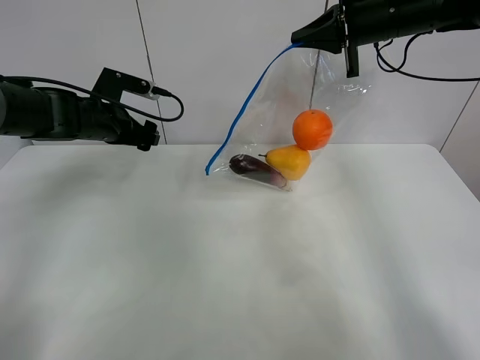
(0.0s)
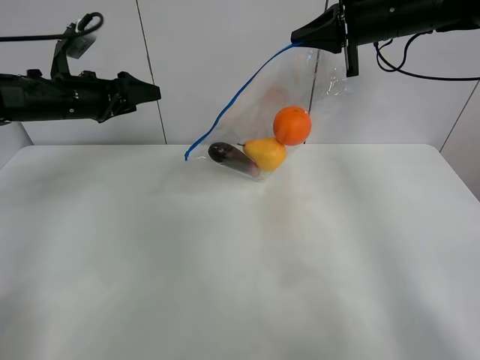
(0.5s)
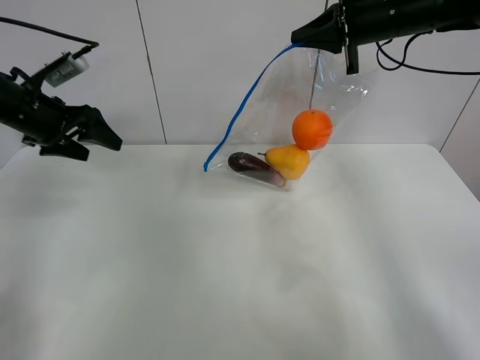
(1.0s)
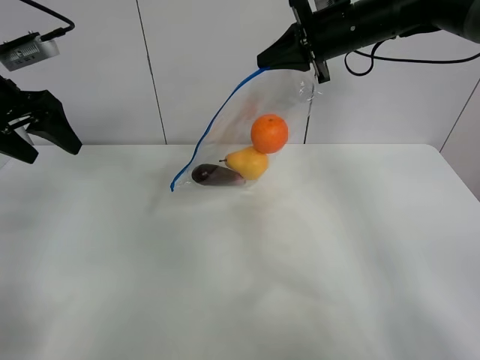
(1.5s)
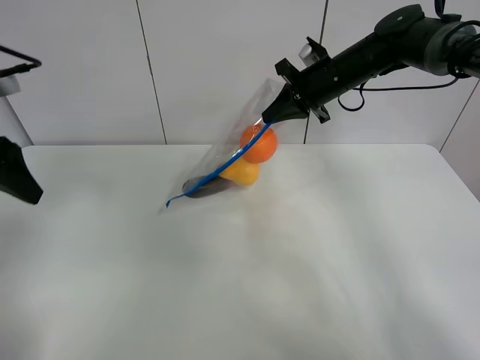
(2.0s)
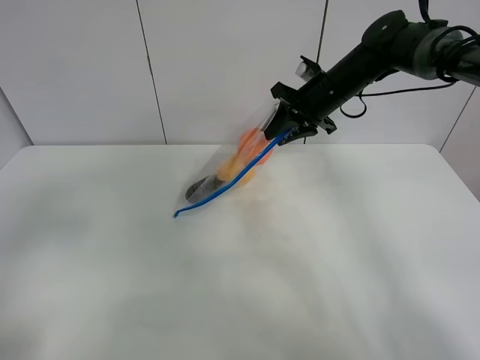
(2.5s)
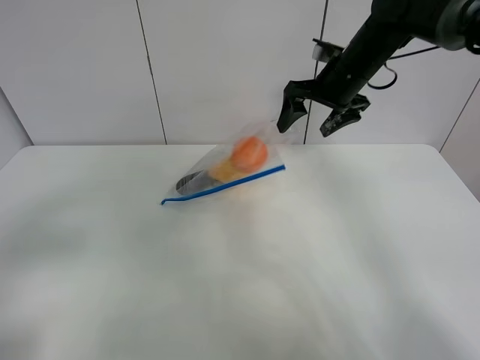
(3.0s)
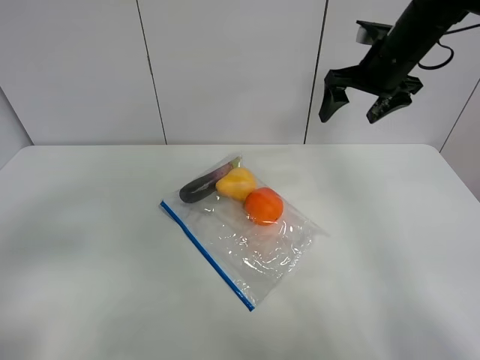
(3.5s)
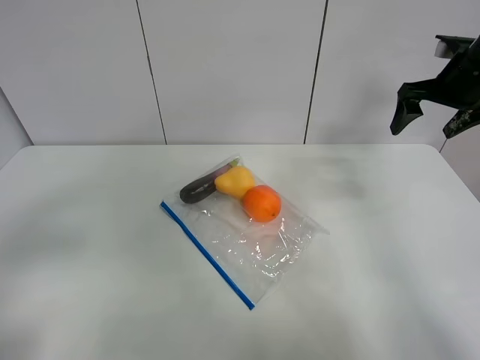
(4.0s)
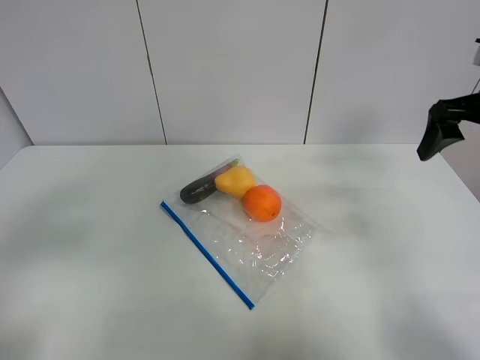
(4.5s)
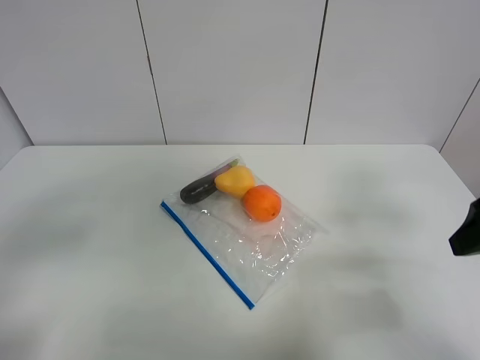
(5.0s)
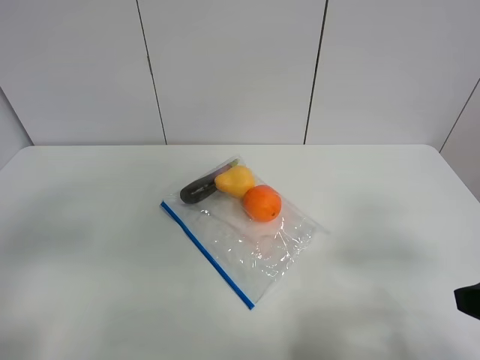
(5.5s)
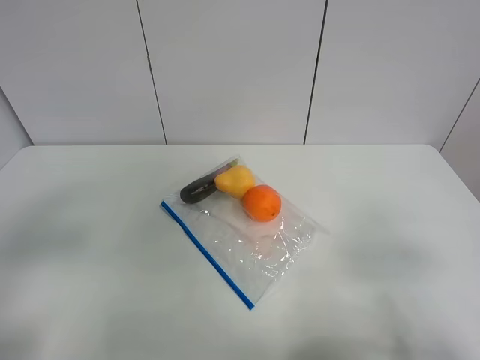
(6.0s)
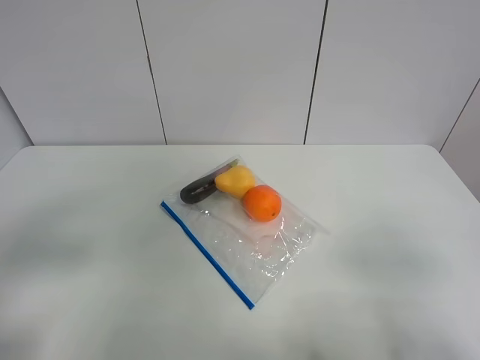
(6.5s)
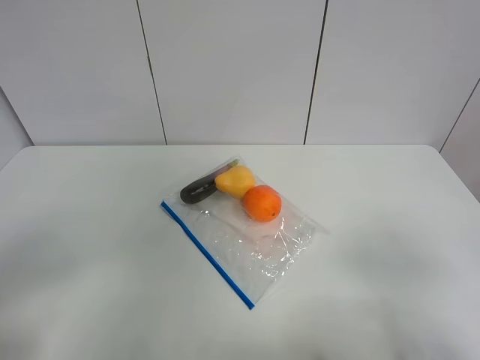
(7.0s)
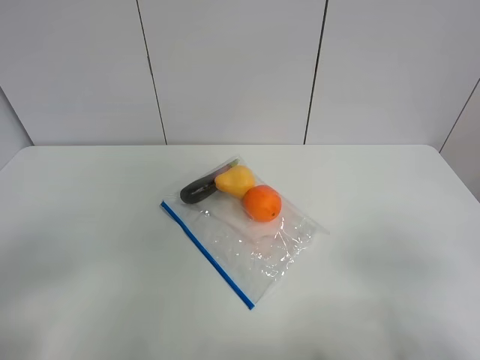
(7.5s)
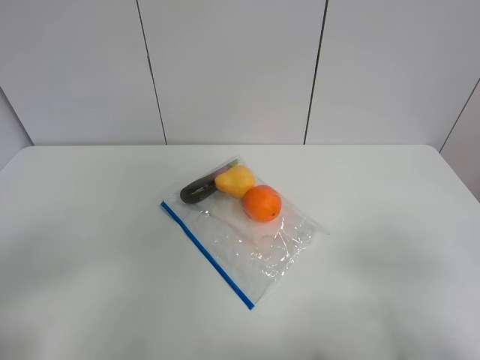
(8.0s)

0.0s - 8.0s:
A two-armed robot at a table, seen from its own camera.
Step, 0.0s - 3.0s: Place the fruit bag with right gripper.
0.0s - 2.0s: The left gripper travels backward and upward by approximately 25 cm, while the right gripper shifts approximately 10 cm downward and to the left.
2.0s - 4.0s: The right gripper moves to the right, roughly 15 cm, and opens its fingers. The left gripper moves backward, approximately 15 cm.
4.0s - 6.0s: The right gripper goes about 35 cm backward.

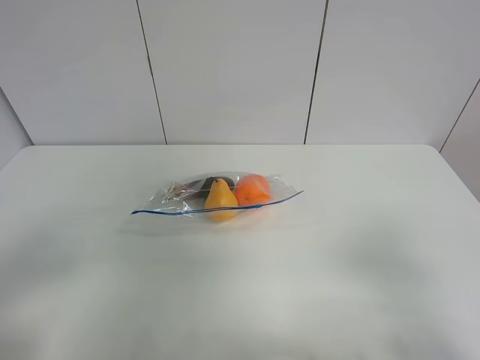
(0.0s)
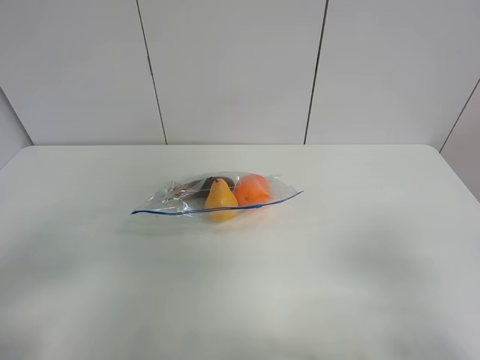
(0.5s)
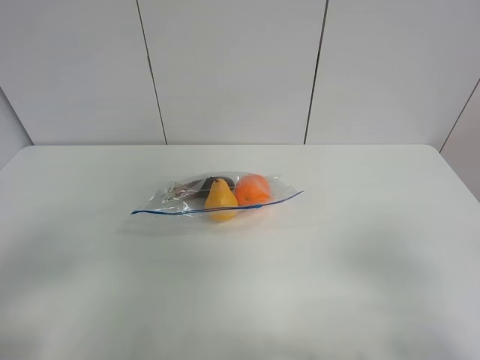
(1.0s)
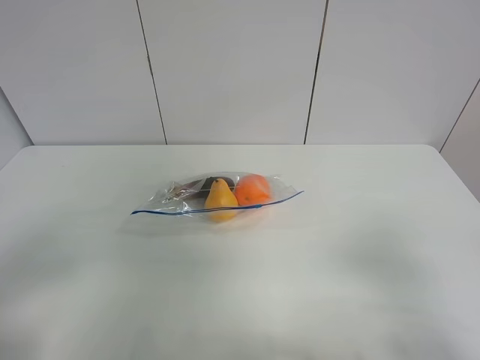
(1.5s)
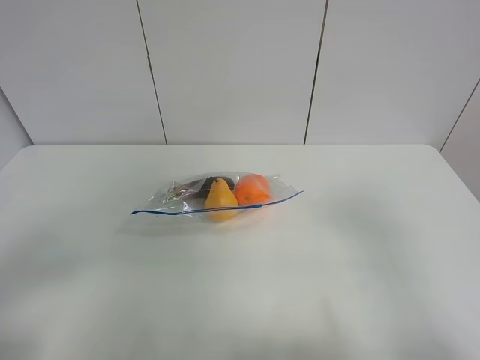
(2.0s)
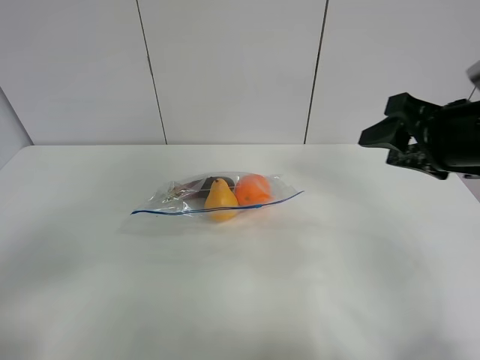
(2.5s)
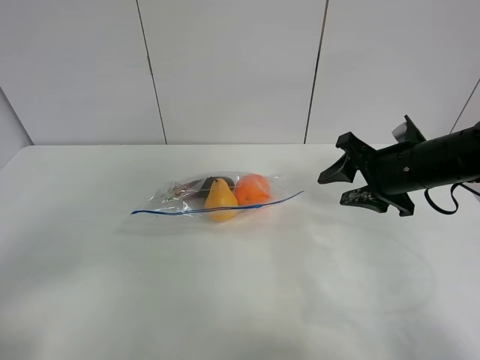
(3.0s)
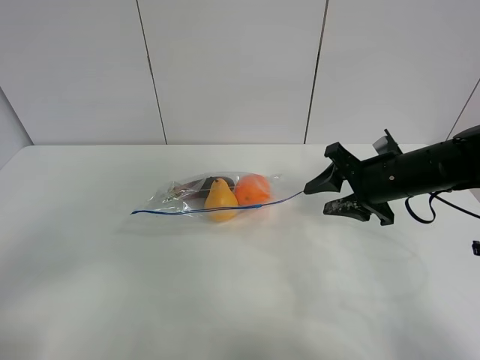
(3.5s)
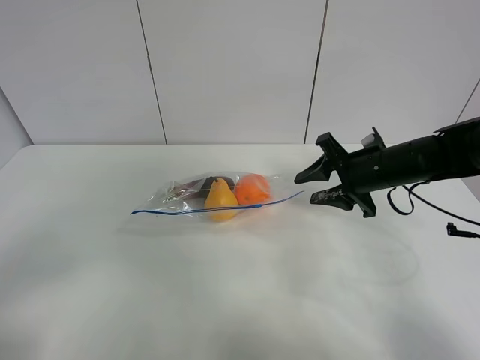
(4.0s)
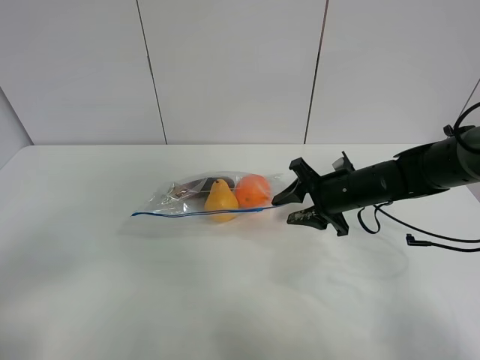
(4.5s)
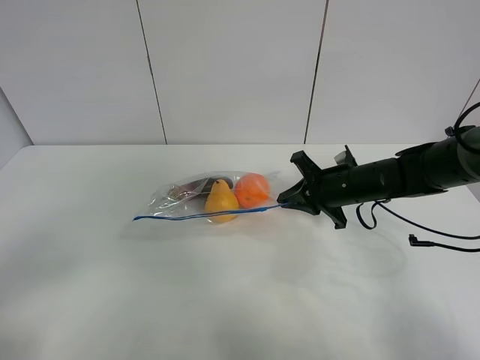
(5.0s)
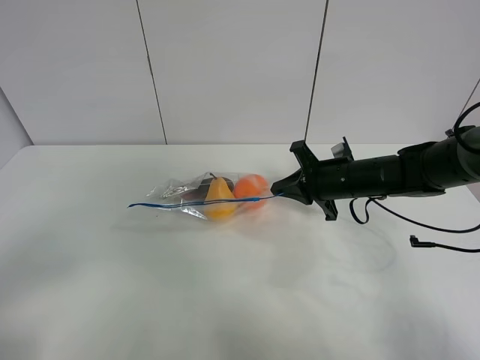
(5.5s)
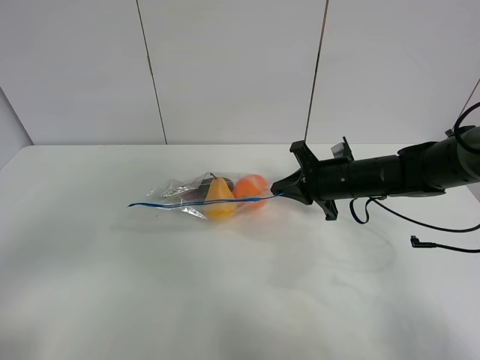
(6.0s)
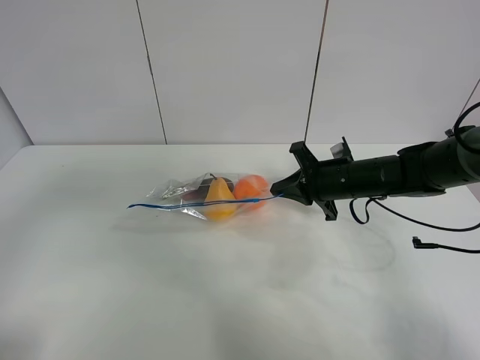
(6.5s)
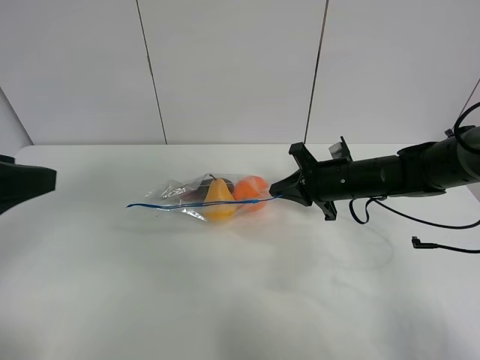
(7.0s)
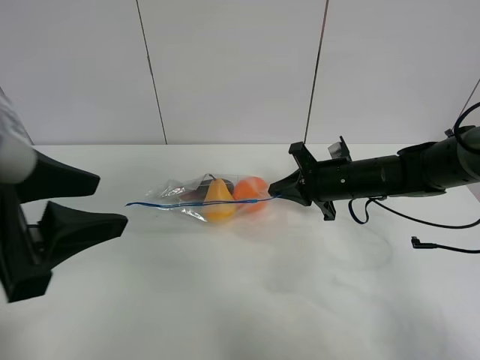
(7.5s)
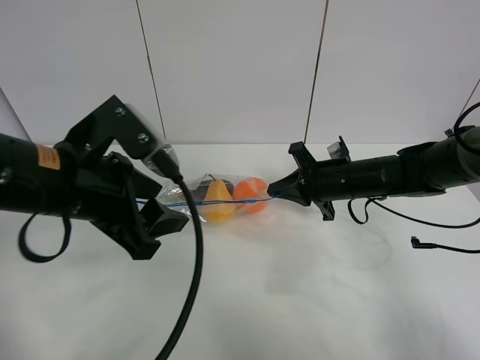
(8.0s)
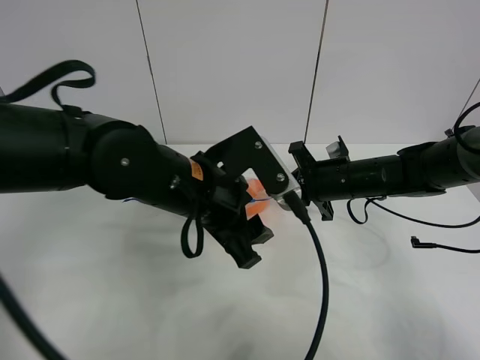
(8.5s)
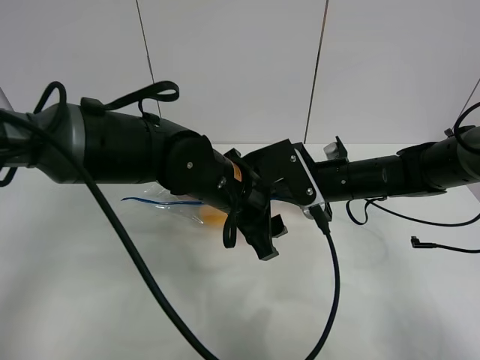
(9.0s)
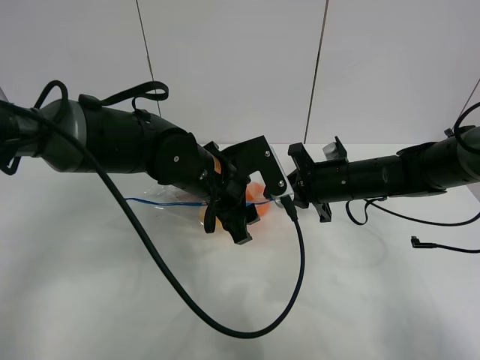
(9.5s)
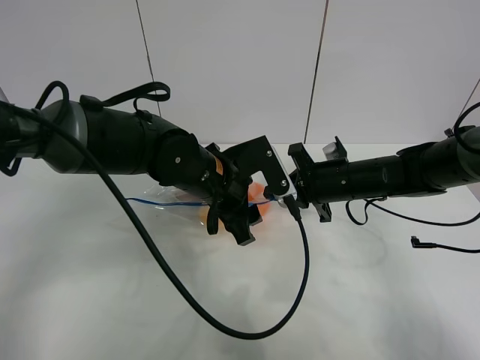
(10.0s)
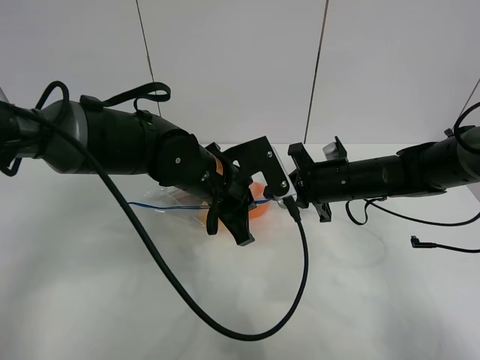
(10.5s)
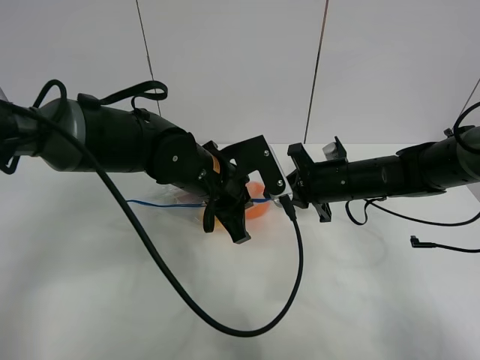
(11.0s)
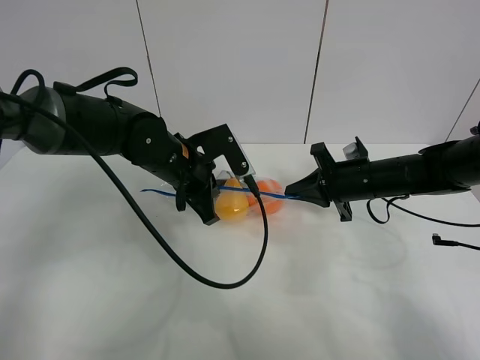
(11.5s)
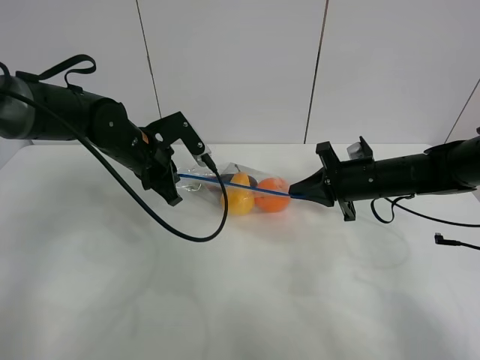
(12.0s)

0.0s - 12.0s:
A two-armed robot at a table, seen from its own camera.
Step, 0.0s - 5.0s: Grasp the fruit bag with right gripper.
2.0s - 4.0s: The right gripper heads forward and downward, covering about 30 cm.
4.0s - 6.0s: The right gripper closes.
6.0s - 8.0s: The left gripper heads forward and to the right, covering some 25 cm.
8.0s - 10.0s: The left gripper moves to the right, forward and downward, approximately 15 cm.
10.0s - 12.0s: The left gripper heads to the left and forward, covering roughly 15 cm, and closes its fingers.

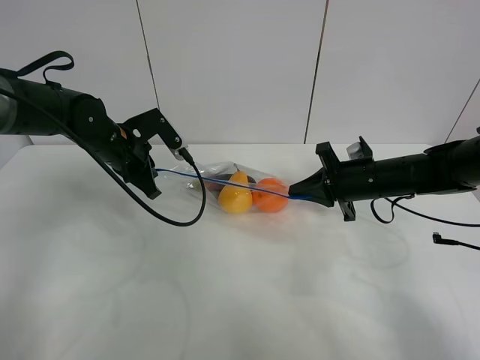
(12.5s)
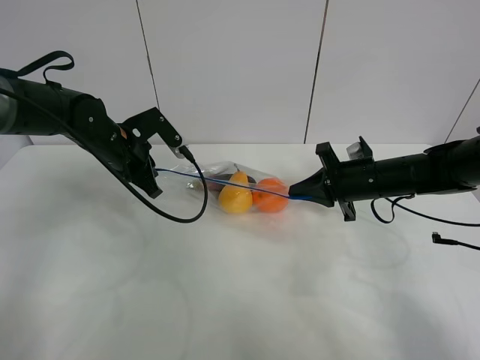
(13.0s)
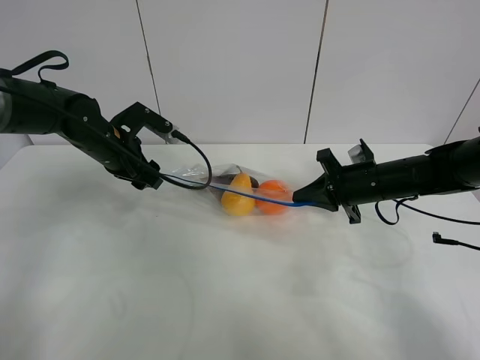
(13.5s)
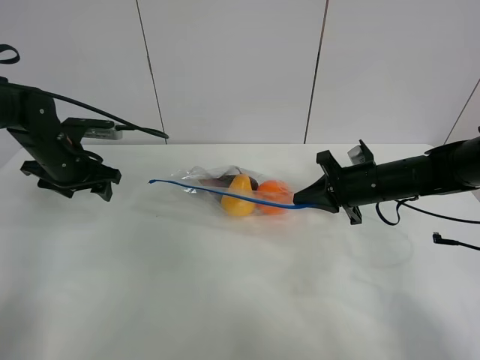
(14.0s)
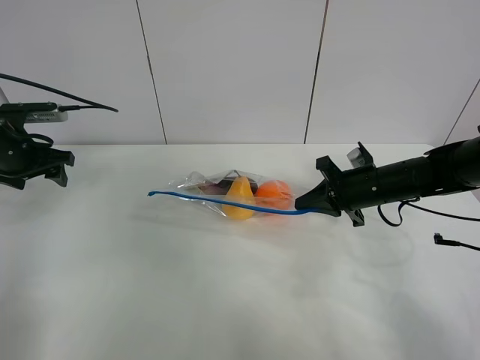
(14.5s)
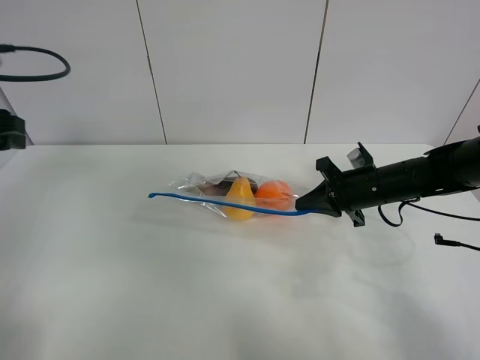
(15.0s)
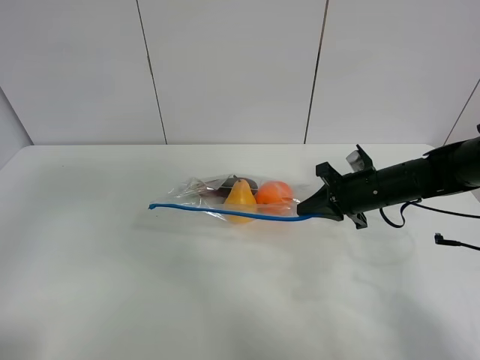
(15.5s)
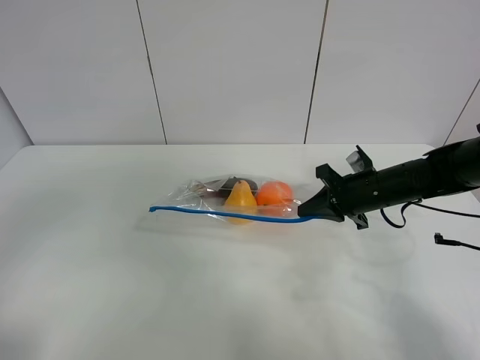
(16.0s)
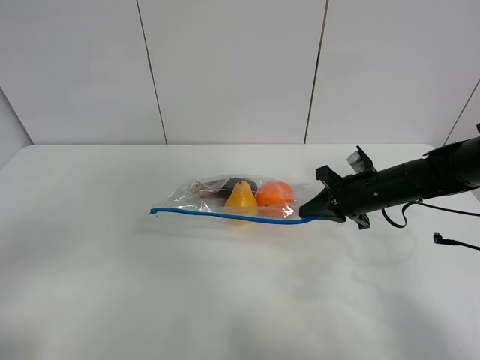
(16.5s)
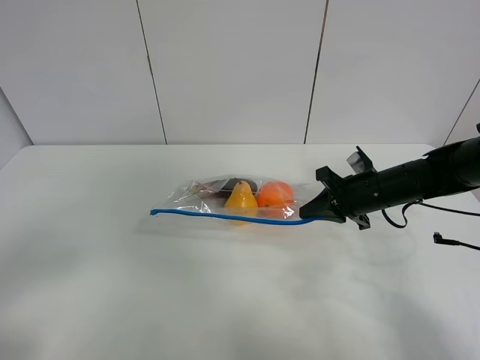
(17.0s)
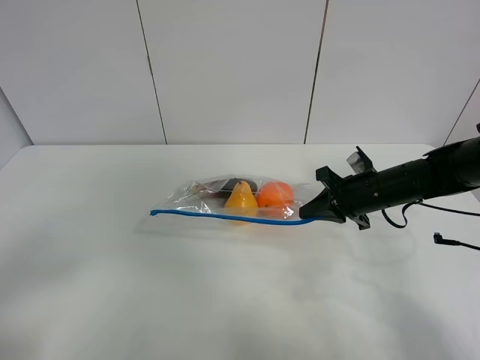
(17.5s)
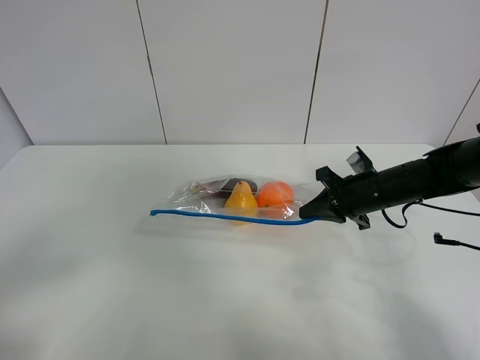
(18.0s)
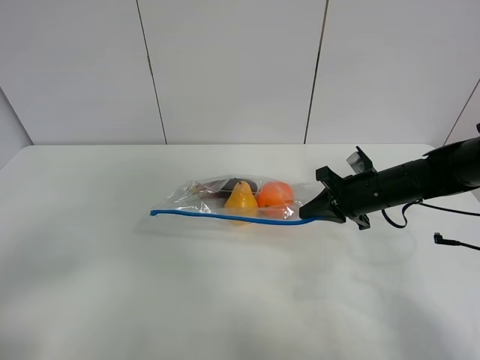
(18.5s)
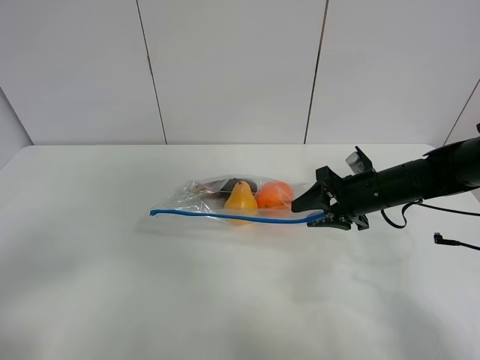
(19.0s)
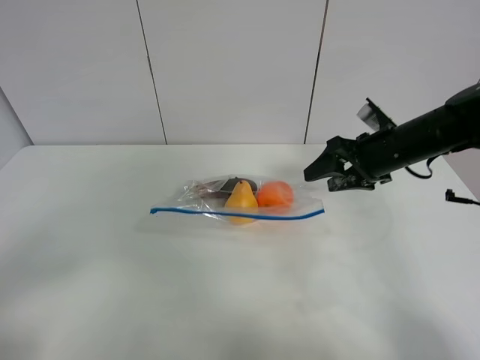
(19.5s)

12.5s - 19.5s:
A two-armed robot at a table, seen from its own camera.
12.5s - 14.5s: The left gripper goes roughly 15 cm to the left, and opens its fingers.
14.5s - 16.0s: The left gripper goes approximately 35 cm backward.
16.0s - 17.5s: The left gripper travels downward by roughly 10 cm.
17.5s - 19.5s: The right gripper moves upward, some 10 cm, and opens its fingers.
